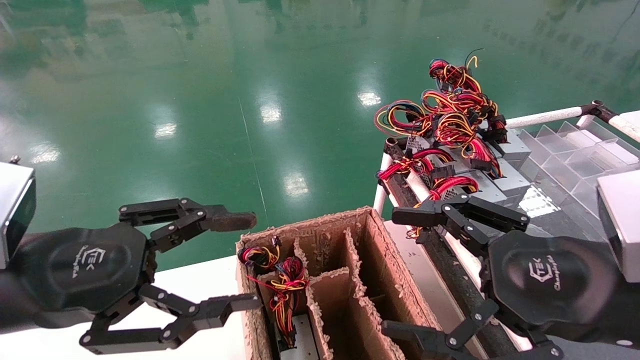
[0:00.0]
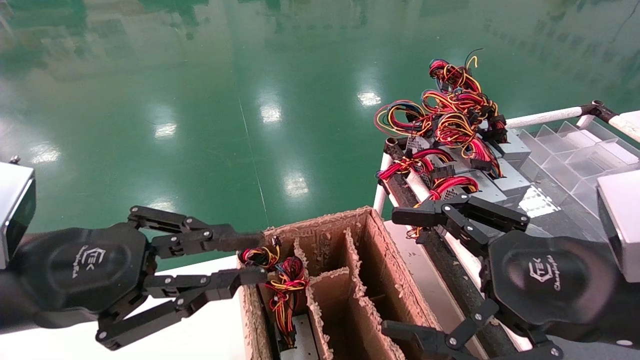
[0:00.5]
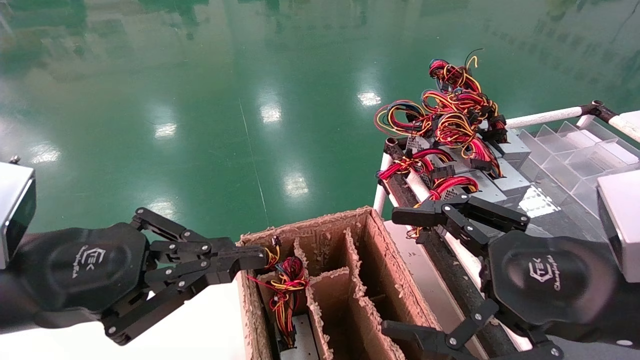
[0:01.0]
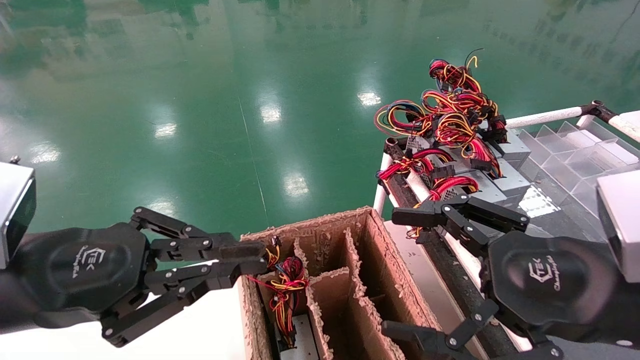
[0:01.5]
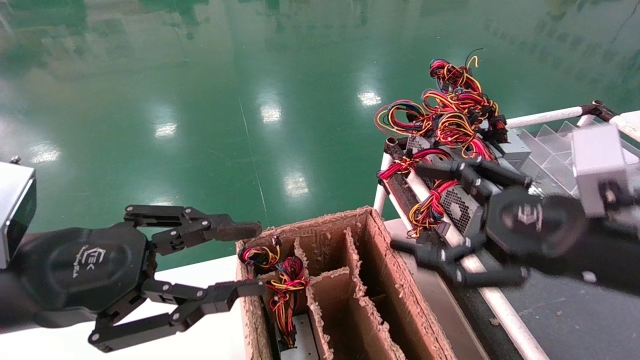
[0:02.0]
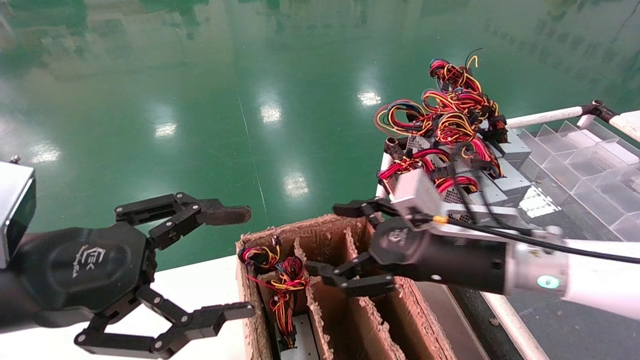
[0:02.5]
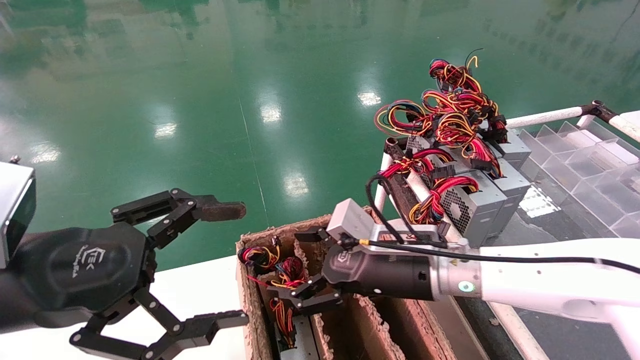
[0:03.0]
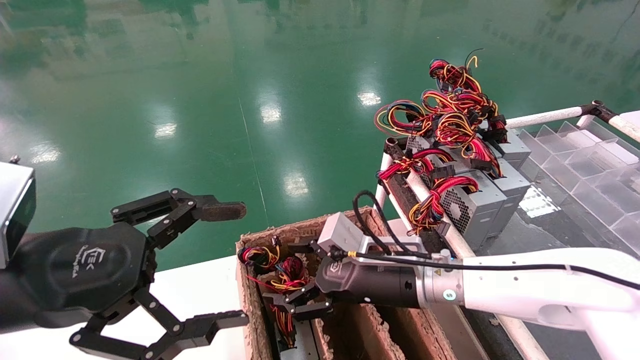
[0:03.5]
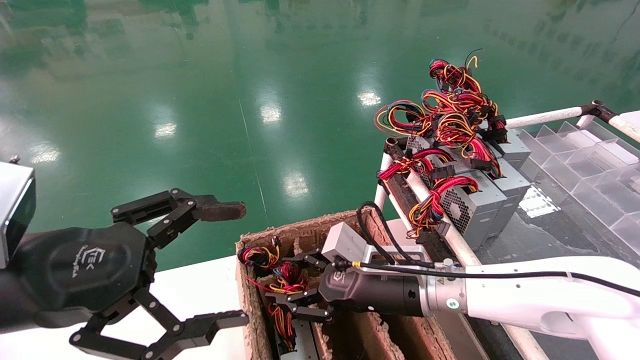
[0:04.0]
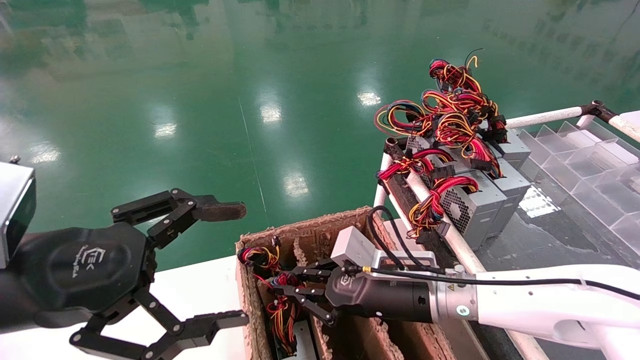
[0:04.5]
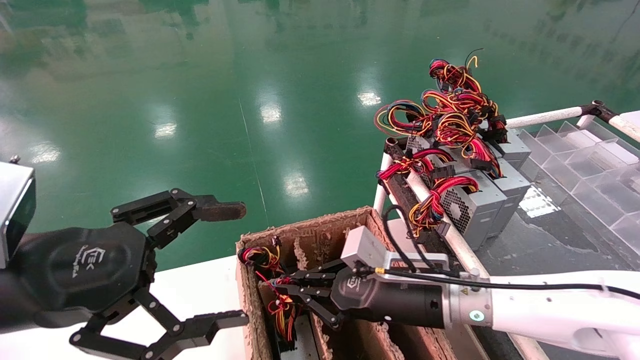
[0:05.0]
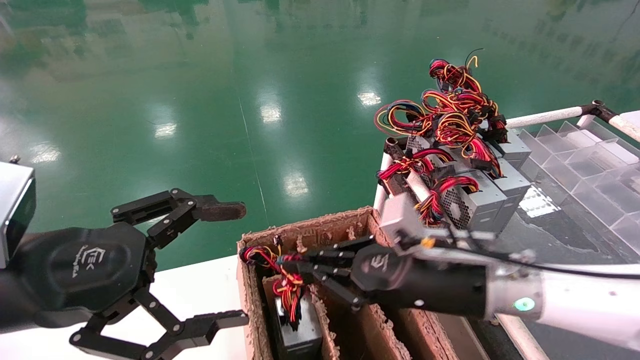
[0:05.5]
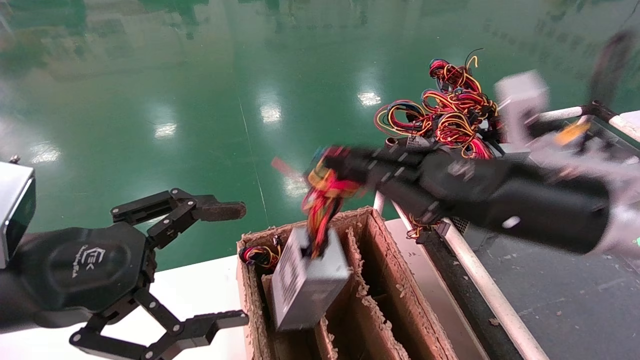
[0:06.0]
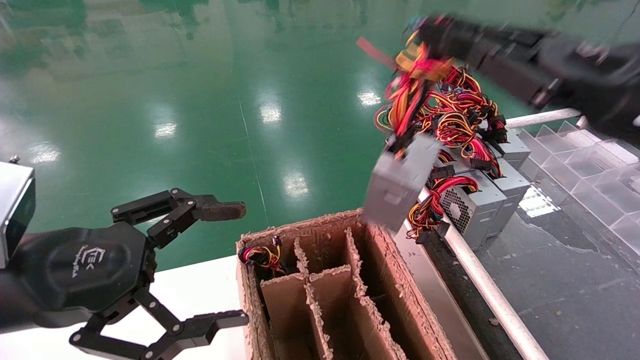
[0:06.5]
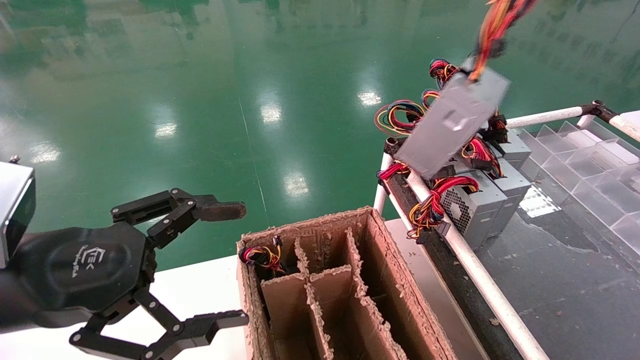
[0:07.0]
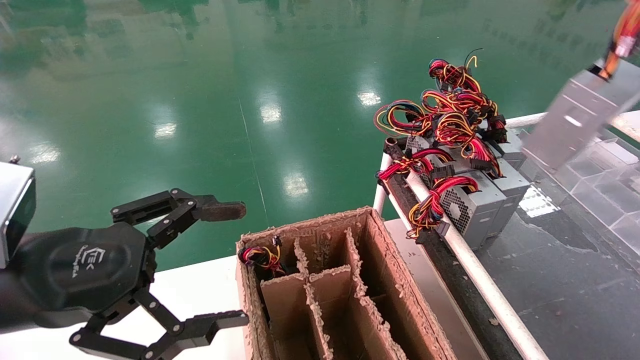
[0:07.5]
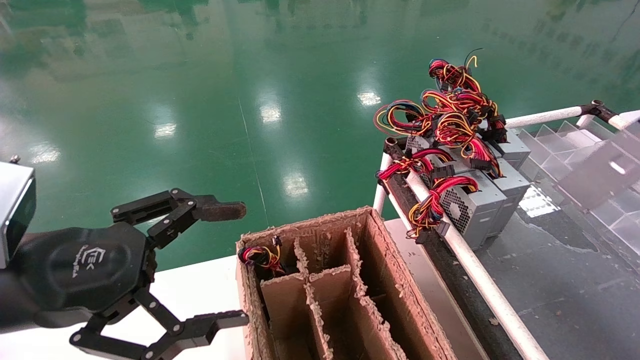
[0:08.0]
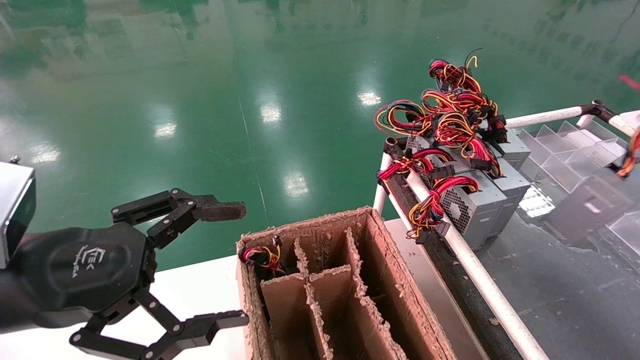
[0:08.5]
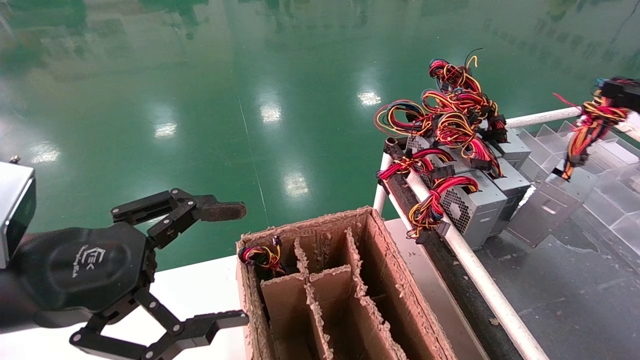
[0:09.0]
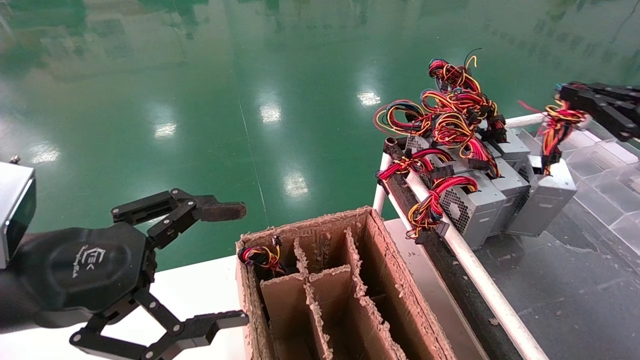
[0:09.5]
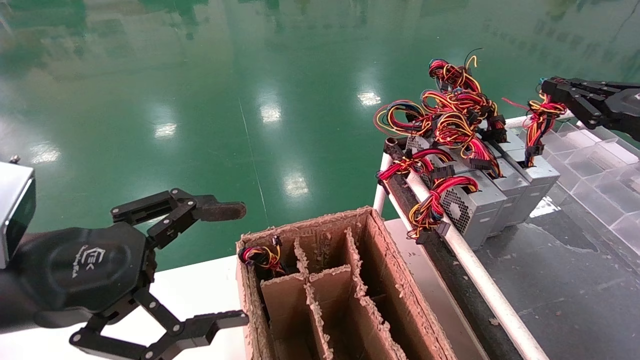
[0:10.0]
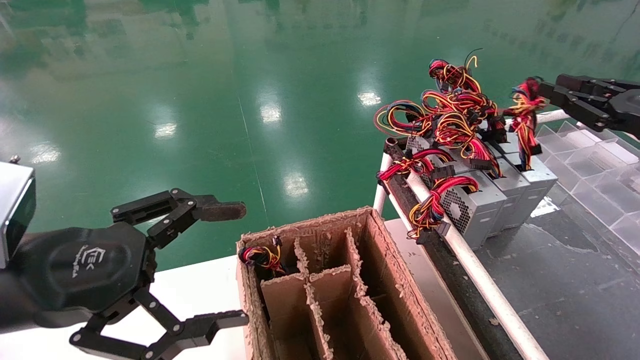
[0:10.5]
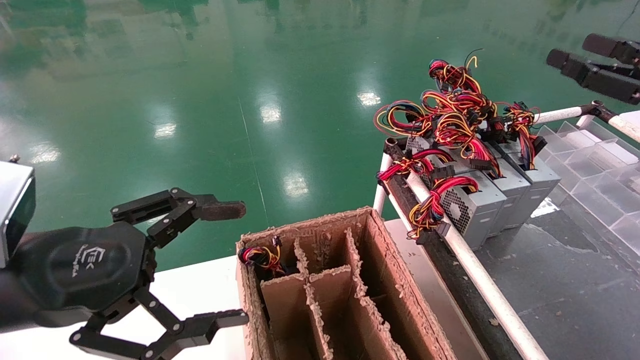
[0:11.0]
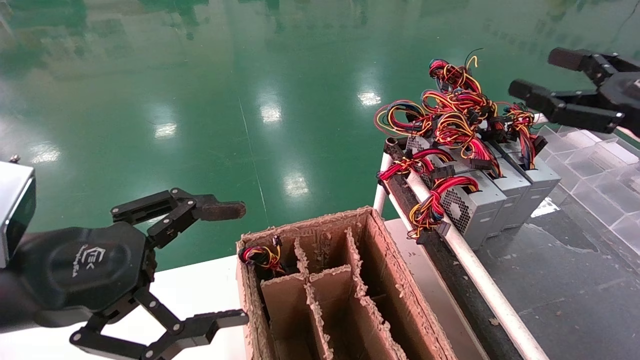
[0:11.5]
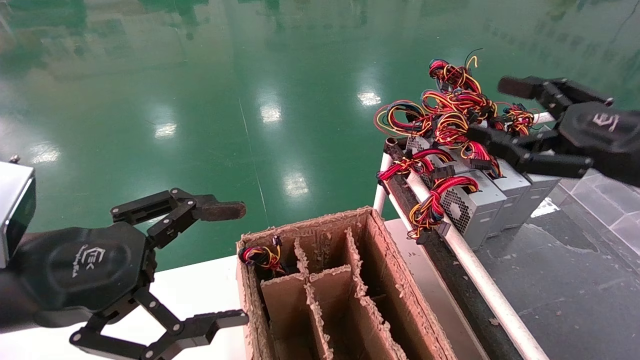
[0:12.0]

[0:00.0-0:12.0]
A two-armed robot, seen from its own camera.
Step, 0:01.0 to 0:04.5: Grab and lift the power supply from the large box.
Step, 0:05.0 to 0:10.5: Place the power supply on the operating table.
0:00.0 to 0:02.0: The left gripper closes; the right gripper is displaced forward by approximately 5 cm.
0:02.0 to 0:04.0: The left gripper opens its fingers. The right gripper moves to the left, downward and forward, roughly 20 cm, and closes up.
0:04.0 to 0:06.0: The right gripper is displaced upward, to the right and backward by roughly 20 cm, and closes its fingers.
0:06.0 to 0:08.0: The right gripper heads to the right, covering roughly 30 cm.
0:08.0 to 0:10.0: The right gripper shifts roughly 15 cm forward and to the left.
0:10.0 to 0:12.0: The right gripper is displaced to the left and backward by roughly 10 cm, and opens up.
